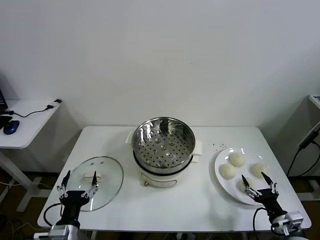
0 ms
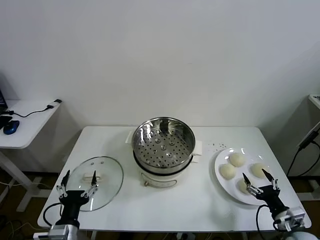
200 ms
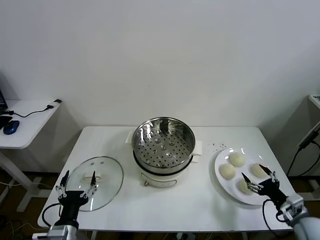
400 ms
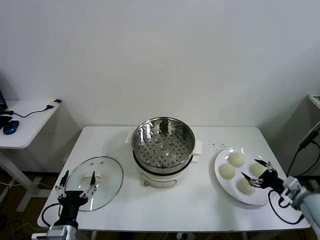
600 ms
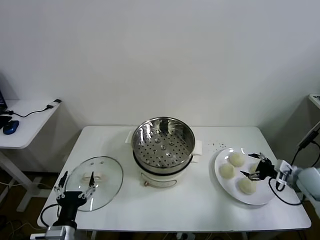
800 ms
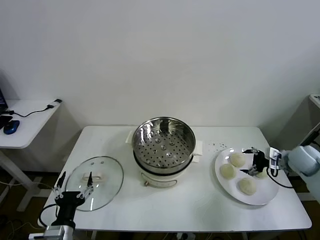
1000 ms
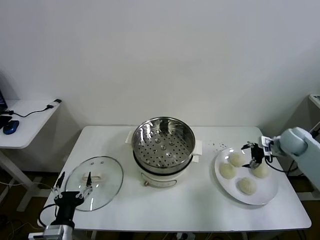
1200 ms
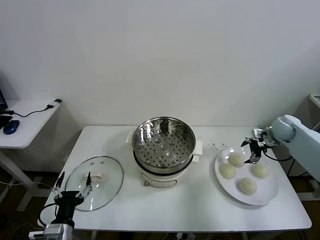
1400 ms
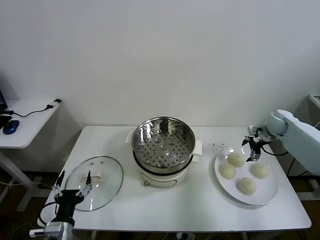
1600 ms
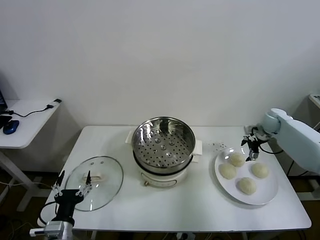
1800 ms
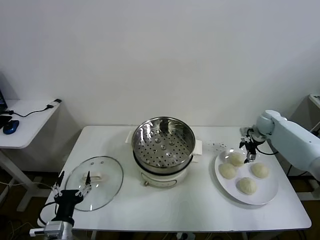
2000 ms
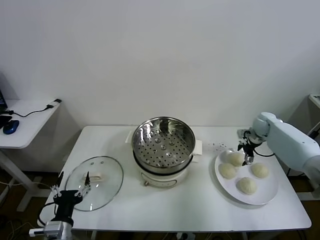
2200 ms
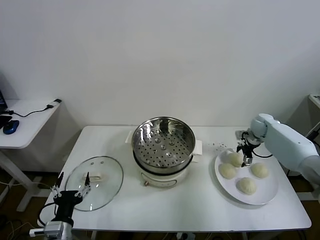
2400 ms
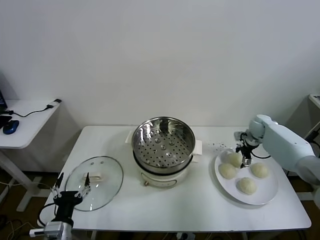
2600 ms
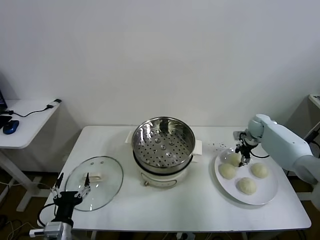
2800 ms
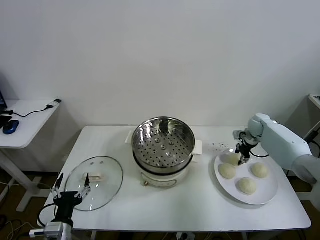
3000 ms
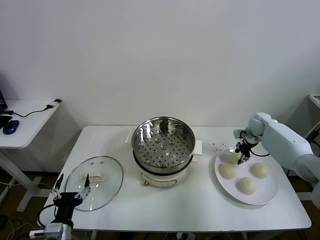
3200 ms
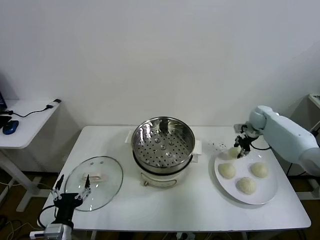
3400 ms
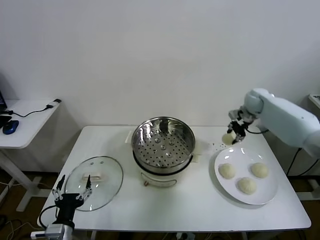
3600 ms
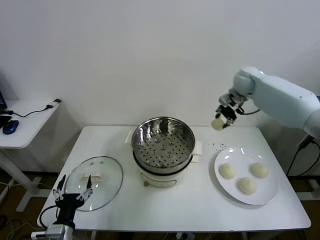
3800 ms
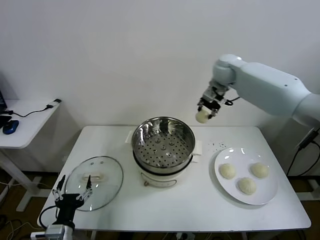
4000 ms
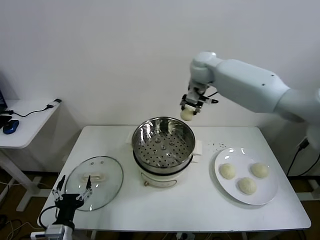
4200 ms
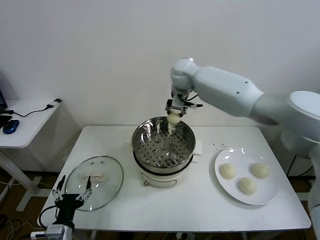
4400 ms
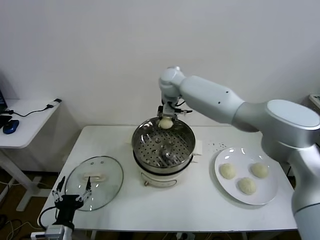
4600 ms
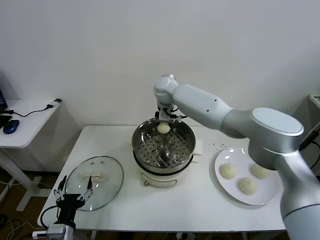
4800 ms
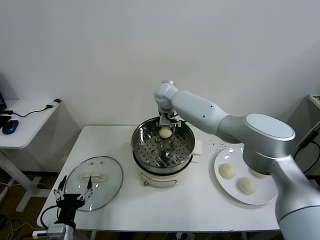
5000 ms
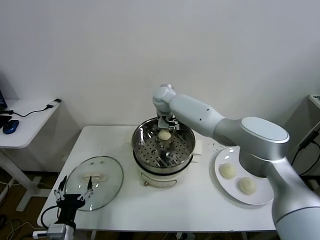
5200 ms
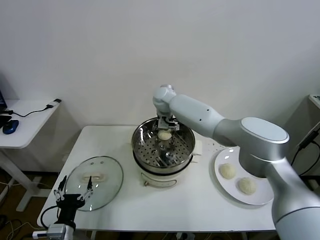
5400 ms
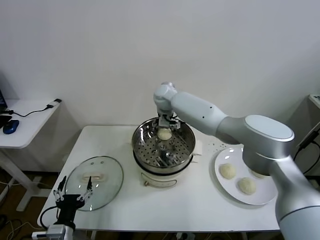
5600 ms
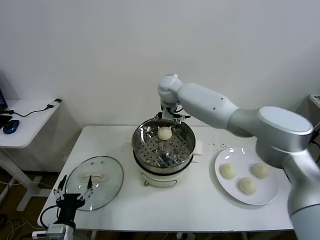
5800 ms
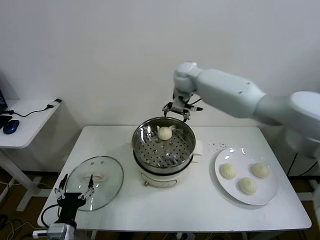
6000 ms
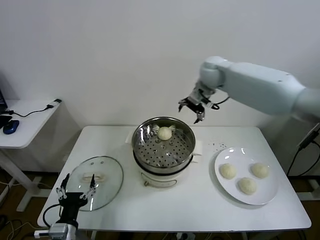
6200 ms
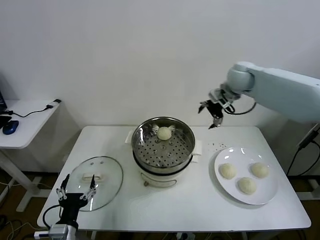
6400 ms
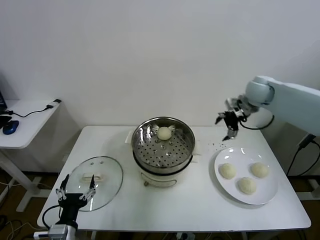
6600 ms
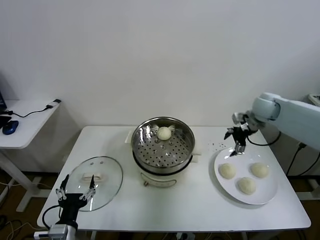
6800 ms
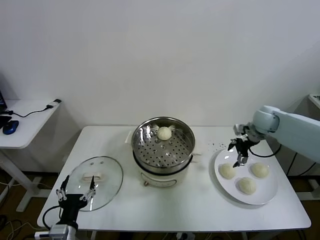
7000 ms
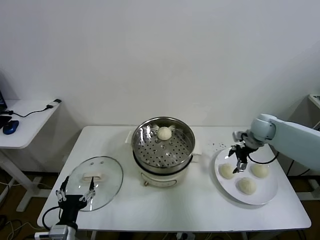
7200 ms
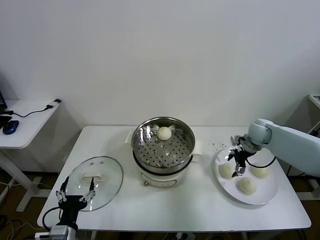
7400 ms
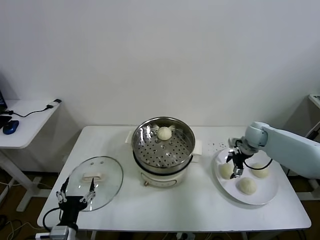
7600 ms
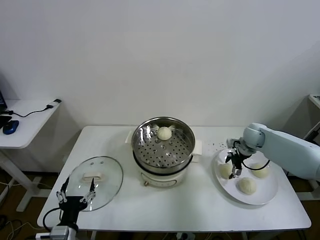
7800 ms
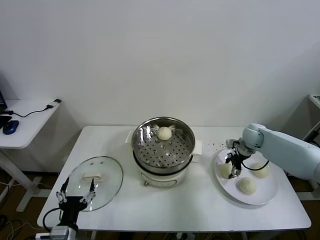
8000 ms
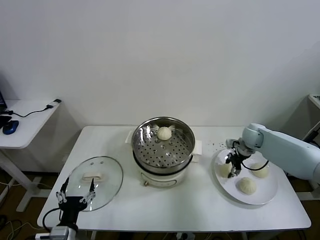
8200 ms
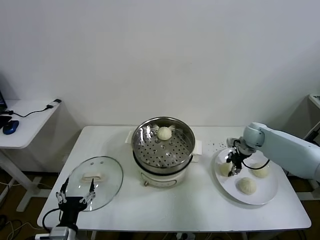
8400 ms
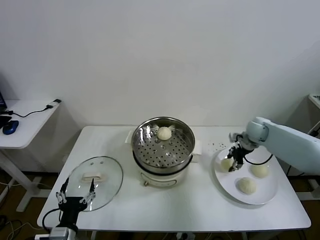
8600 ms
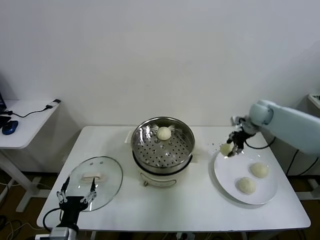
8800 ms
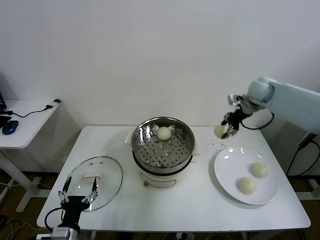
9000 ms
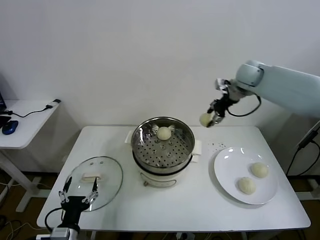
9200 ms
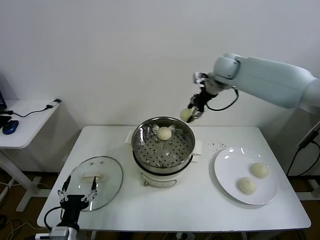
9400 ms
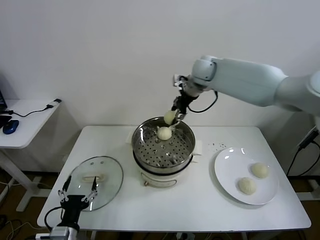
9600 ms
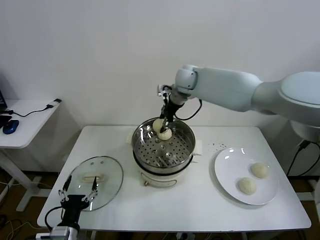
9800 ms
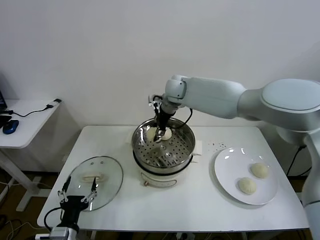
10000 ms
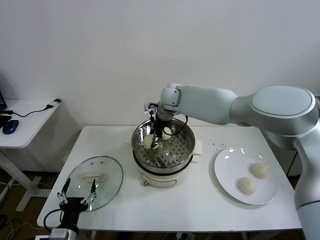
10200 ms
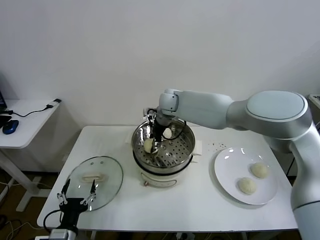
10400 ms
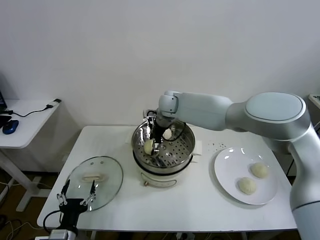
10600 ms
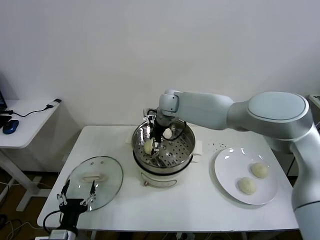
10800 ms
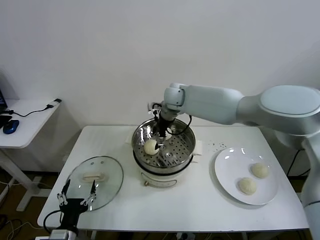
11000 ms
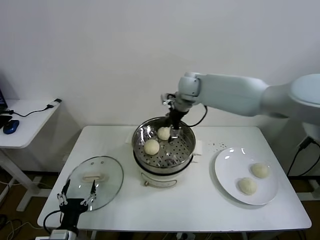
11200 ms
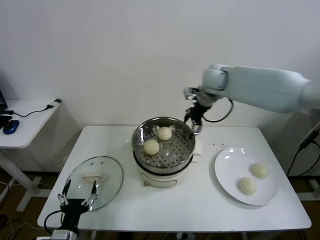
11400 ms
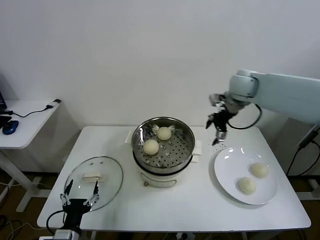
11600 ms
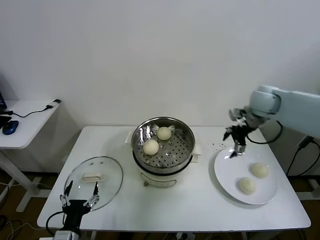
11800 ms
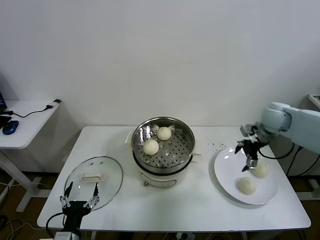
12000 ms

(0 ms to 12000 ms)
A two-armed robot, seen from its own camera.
Task of the whole recording: take steamed baozi put them in steamer.
Step, 0 ms - 2800 ms: Grasp the baozi in the plate with right gripper.
Step, 3200 ms - 5800 ms: Place the baozi on the steamer with right gripper.
Step, 6000 ms - 8000 ms: Grasp the baozi in the plate with right gripper.
Step, 8200 ms - 10800 ms: Place the baozi on the steamer with right gripper.
1600 ms - 3000 ms: The right gripper moves some 5 cm, and closes.
3000 ms - 4400 ms: The right gripper is displaced to the left and upward by roughly 40 cm.
4400 ms - 6000 ms: The right gripper travels to the right by roughly 10 cm, and opens its fingers.
6000 ms - 7600 ms: The right gripper goes roughly 35 cm to the right and downward.
7600 ms - 9000 ms: The right gripper moves upward, approximately 20 cm, and closes up.
9000 ms - 10400 ms: The right gripper shifts about 30 cm to the left.
10400 ms - 12000 ms: The right gripper moves to the right, some 35 cm, and opens its fingers.

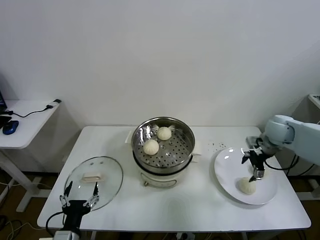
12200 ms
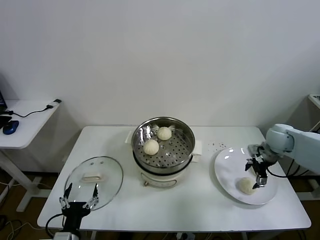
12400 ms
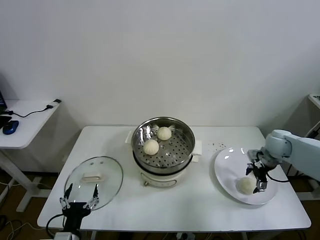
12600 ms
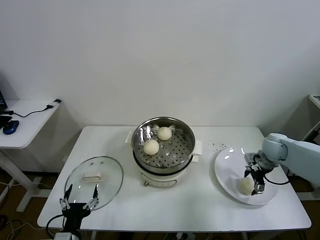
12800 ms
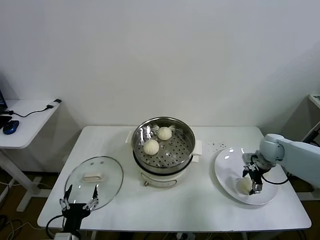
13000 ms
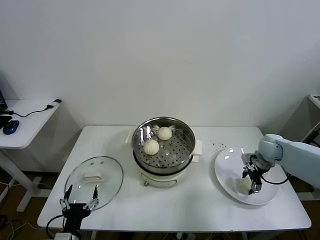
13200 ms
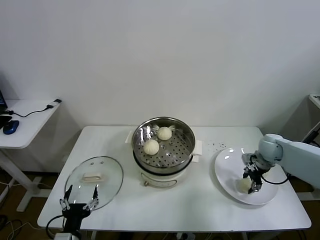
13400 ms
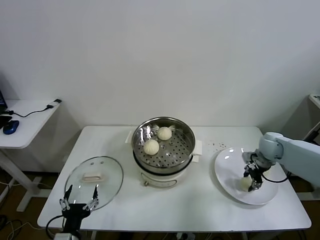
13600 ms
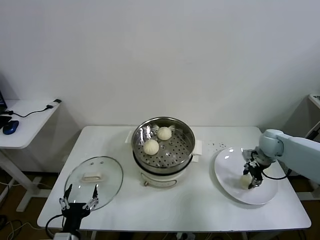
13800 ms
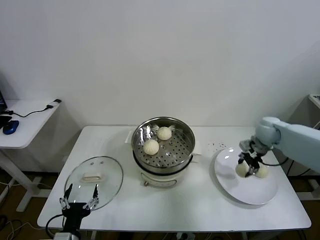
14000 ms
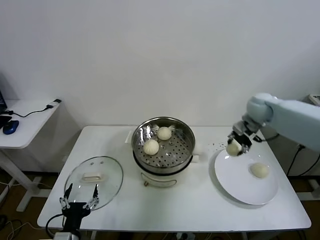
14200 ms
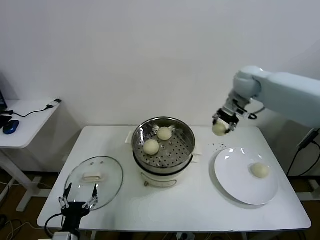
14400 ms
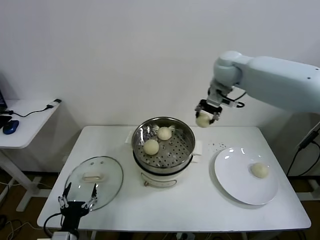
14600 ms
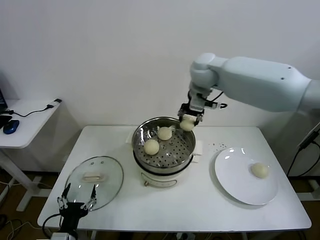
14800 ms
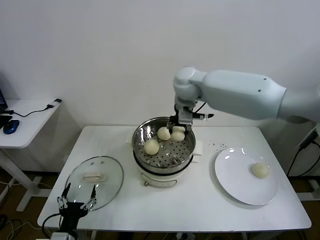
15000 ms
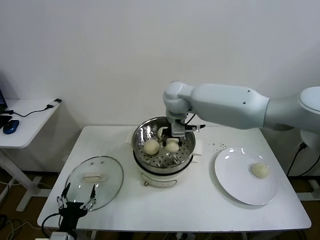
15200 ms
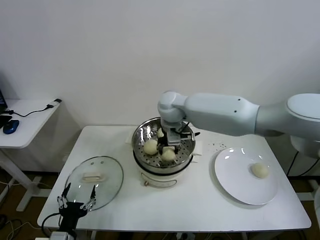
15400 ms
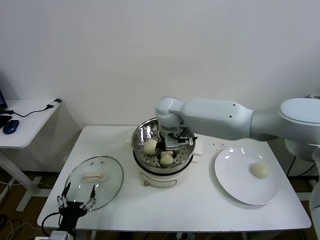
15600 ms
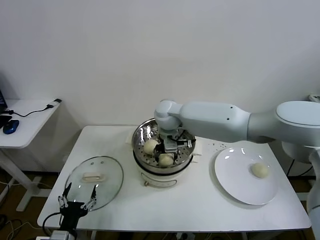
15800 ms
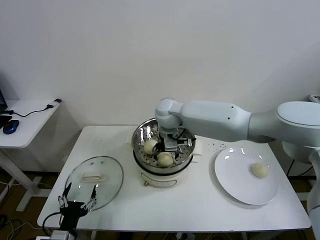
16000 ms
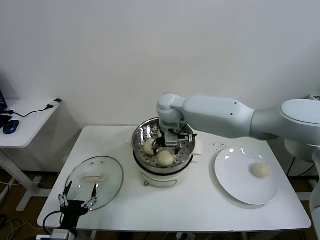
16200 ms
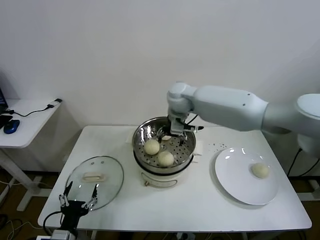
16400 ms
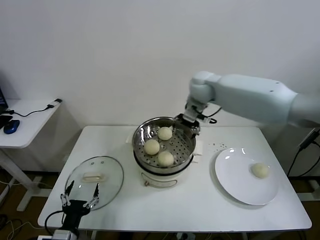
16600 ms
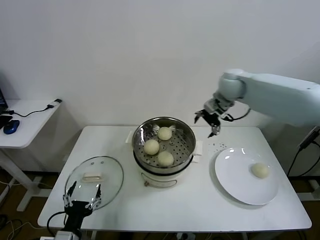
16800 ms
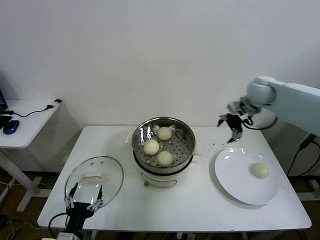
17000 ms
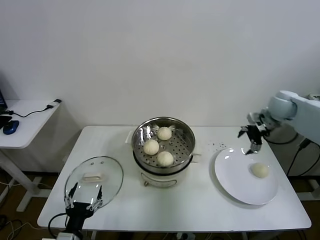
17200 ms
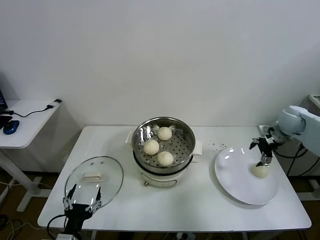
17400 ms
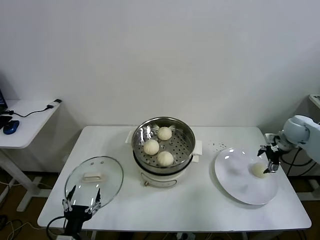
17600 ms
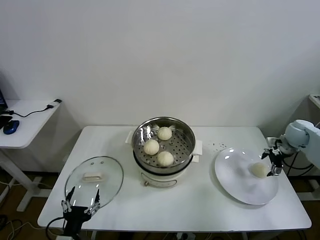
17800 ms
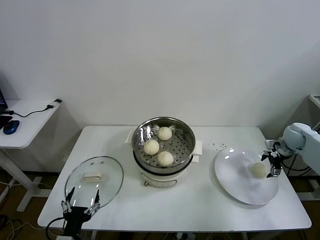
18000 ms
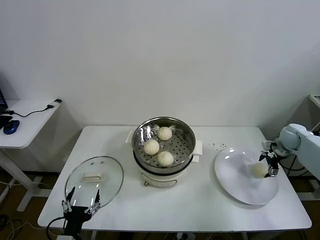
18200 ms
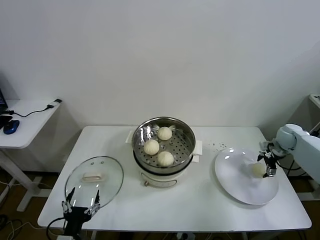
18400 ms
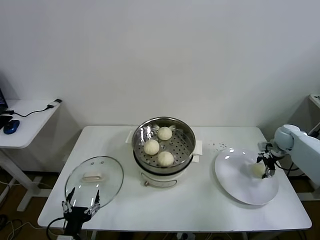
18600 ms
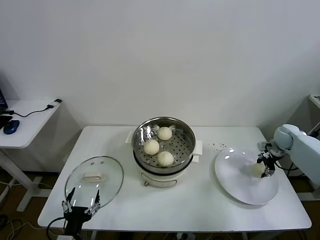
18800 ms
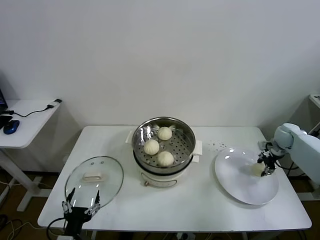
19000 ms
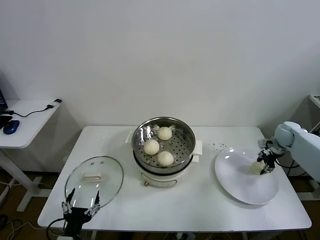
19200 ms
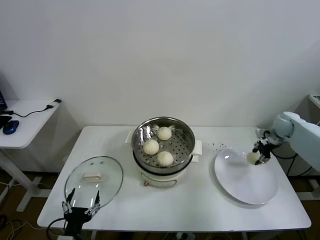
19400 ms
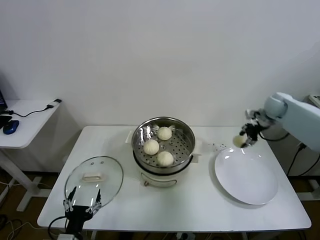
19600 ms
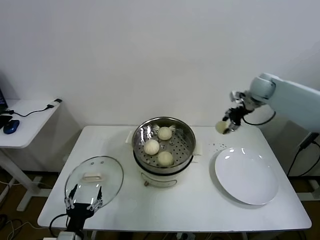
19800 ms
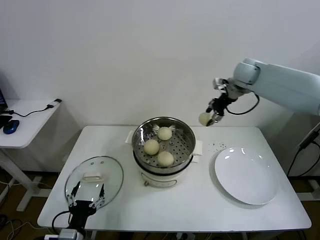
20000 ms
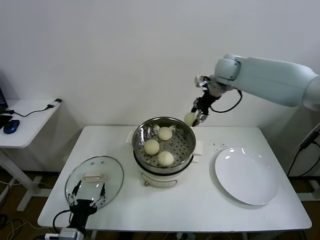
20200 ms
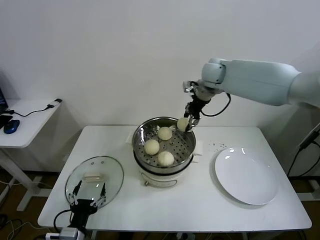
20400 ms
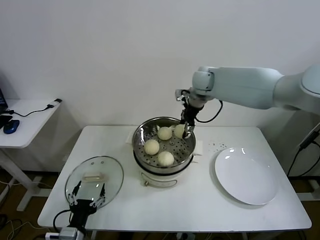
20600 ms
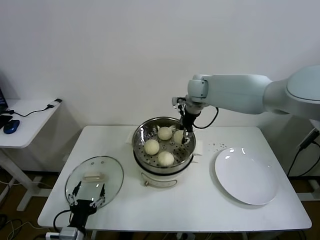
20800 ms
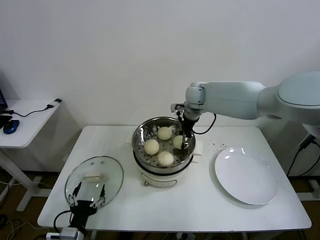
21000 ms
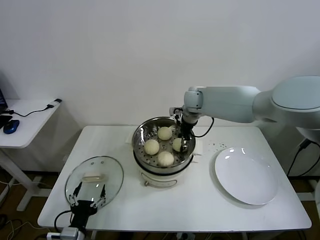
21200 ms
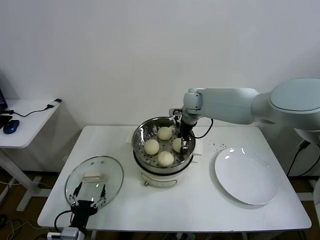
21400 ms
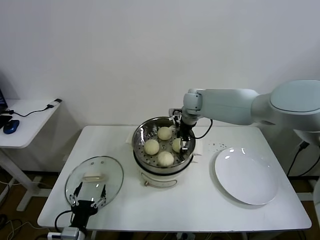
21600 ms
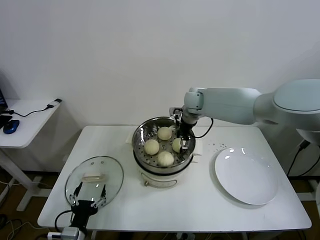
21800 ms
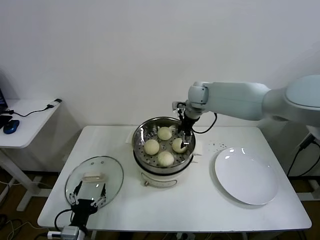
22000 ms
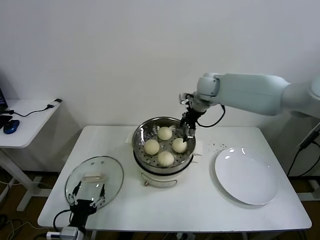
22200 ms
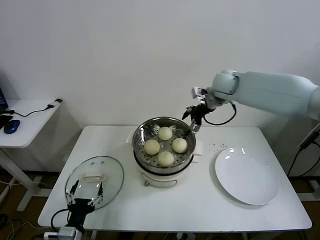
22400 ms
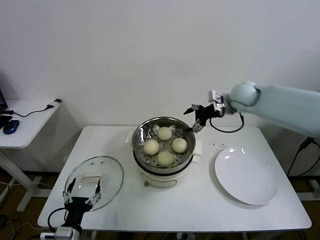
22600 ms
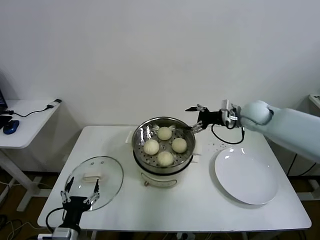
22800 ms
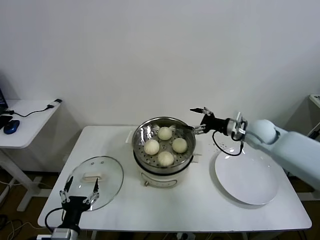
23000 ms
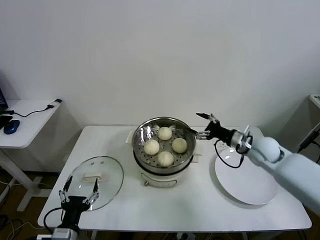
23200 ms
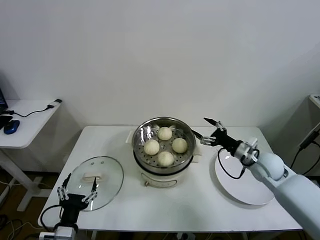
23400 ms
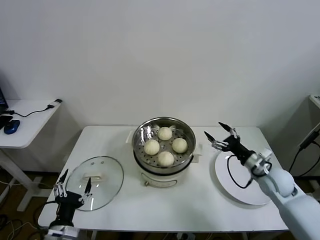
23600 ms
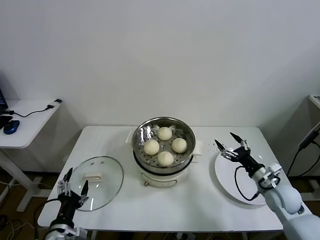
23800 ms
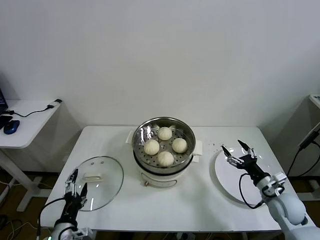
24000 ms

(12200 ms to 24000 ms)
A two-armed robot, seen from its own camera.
Task of the whole recording: take steamed baozi put them in steamer.
Step, 12200 ms - 13400 ms: Grasp the baozi in the plate with right gripper.
Step, 13600 ms - 16200 ms: Place the baozi on the steamer with right gripper.
Step, 16600 ms - 18800 ms: Grasp the baozi in the plate with right gripper.
Step, 19000 ms - 22200 ms: Place the baozi on the steamer with right gripper.
12200 ms - 13600 ms: The right gripper goes some 5 cm downward, and closes up.
13600 ms - 15200 ms: The right gripper goes some 40 cm to the left and upward.
15200 ms - 16600 ms: The right gripper heads to the right, covering about 10 cm, and opens.
16600 ms - 18200 ms: The right gripper heads to the right and downward, covering some 40 cm.
18200 ms - 19600 ms: The right gripper heads upward, to the left and forward, covering about 15 cm, and closes up.
19600 ms - 21000 ms: The right gripper is displaced to the left by about 30 cm.
21000 ms - 22600 ms: The right gripper shifts some 15 cm to the right, and opens.
22600 ms - 24000 ms: The right gripper shifts approximately 40 cm downward, backward and to the right.
